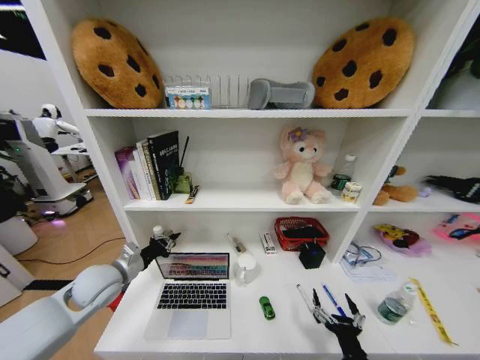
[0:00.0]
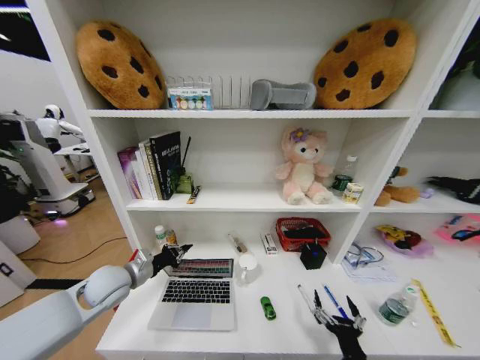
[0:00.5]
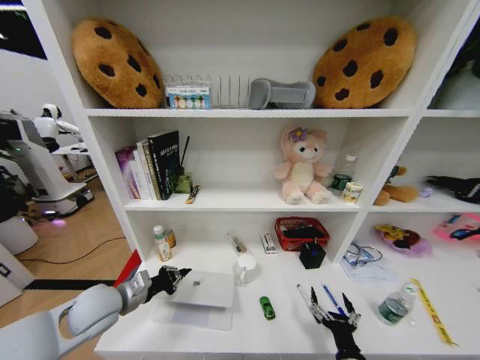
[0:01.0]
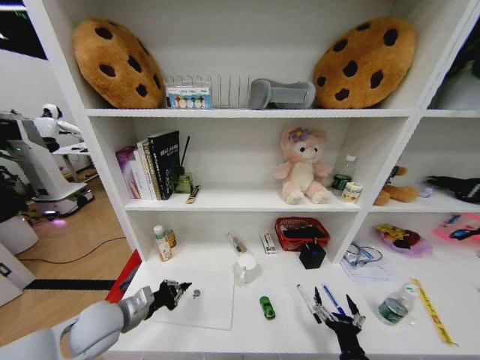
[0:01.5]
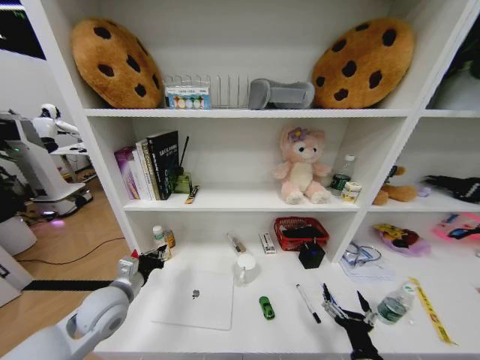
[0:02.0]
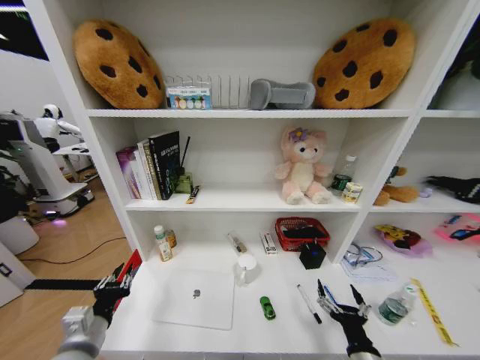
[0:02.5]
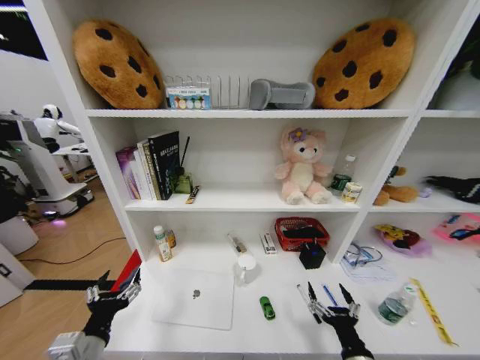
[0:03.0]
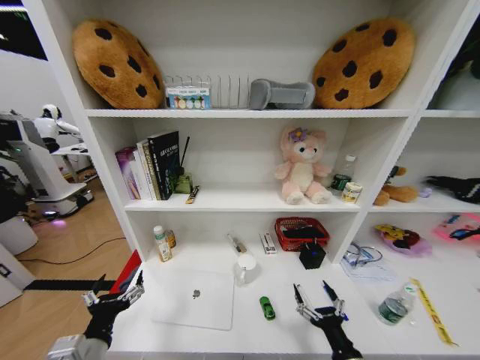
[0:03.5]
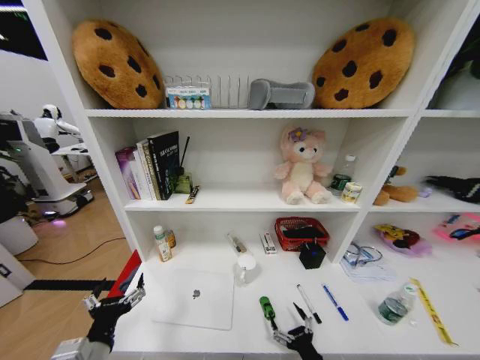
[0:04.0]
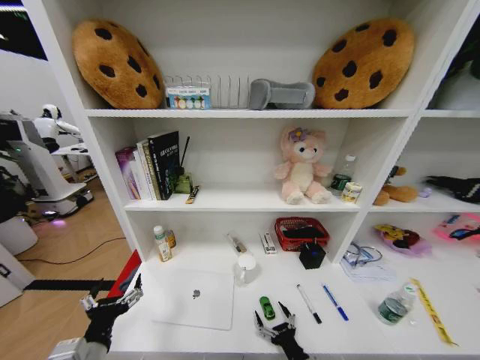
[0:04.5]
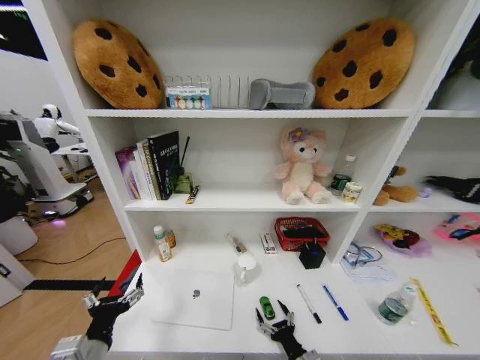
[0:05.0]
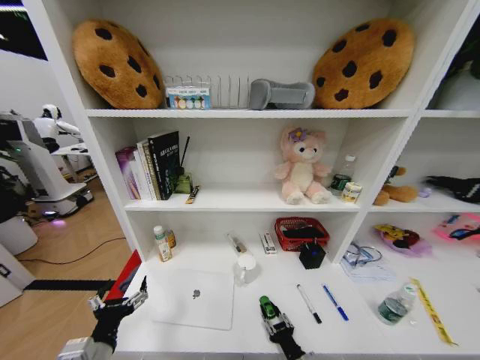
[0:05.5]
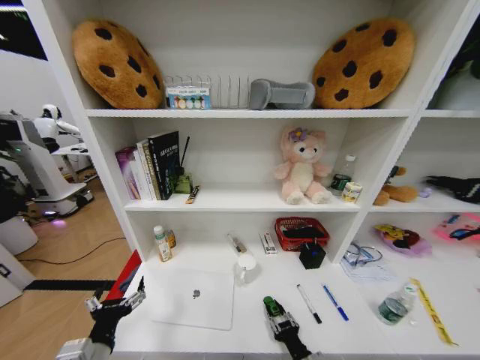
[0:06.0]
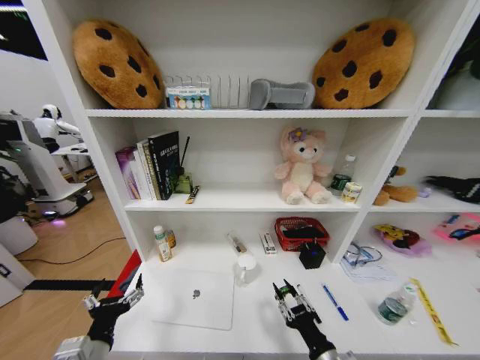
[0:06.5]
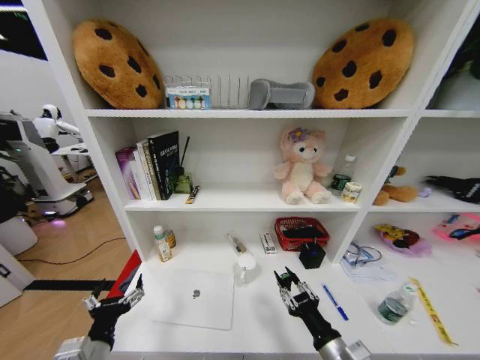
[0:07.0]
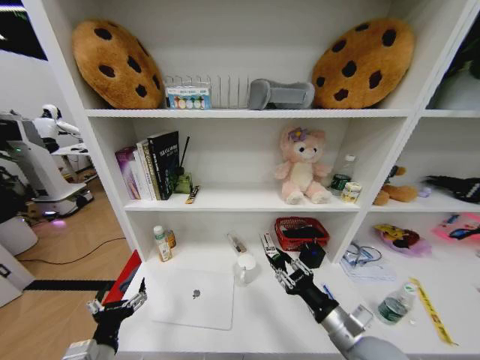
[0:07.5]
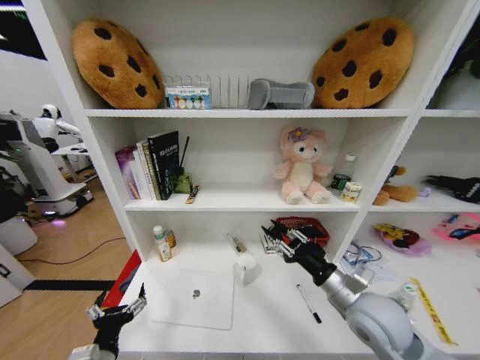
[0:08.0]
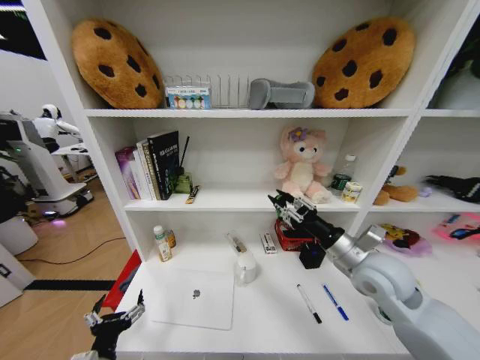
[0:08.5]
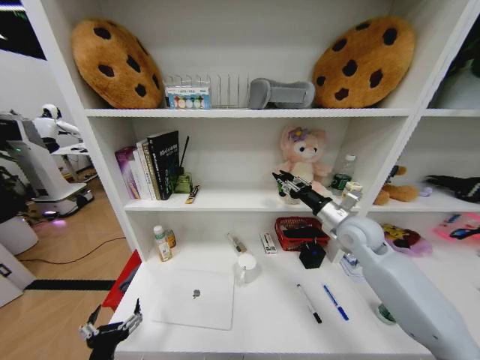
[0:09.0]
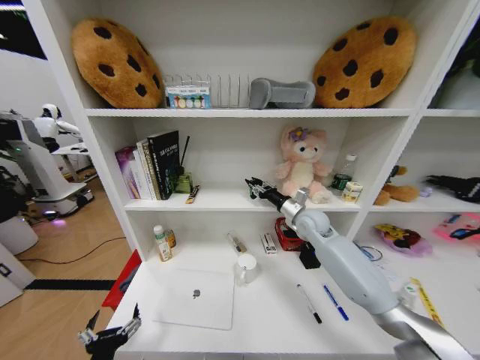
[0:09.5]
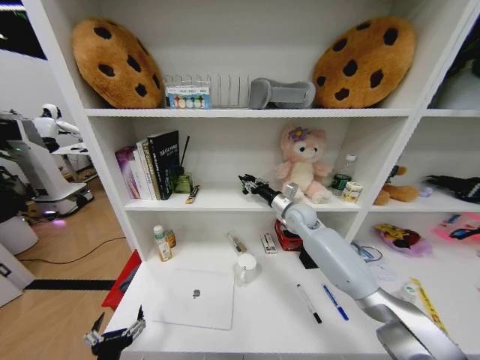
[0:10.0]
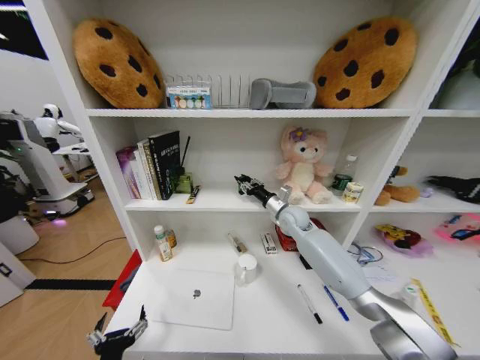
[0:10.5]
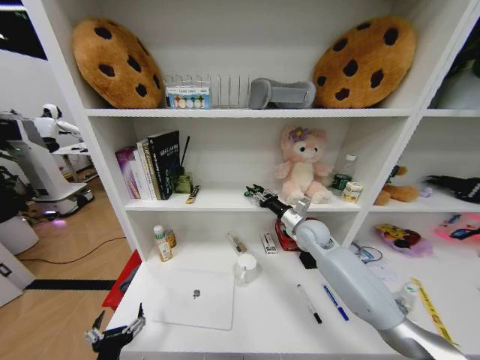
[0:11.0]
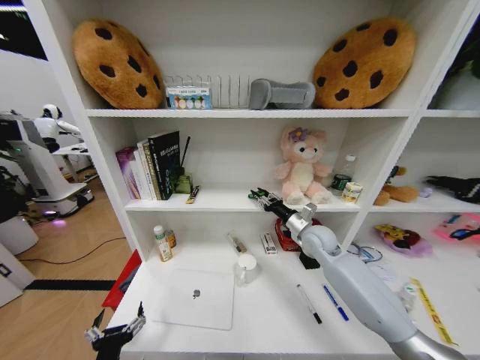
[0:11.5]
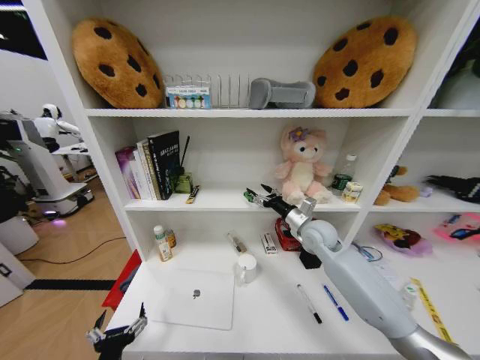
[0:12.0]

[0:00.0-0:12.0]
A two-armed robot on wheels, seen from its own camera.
Task of the whole recording: Organize the objects on the table.
0.0 to 2.0 s: The left gripper ends up about 5 cm from where it was.
2.0 to 4.0 s: The left gripper moves backward, about 15 cm, and opens its fingers; the right gripper heads downward, covering roughly 5 cm.
4.0 to 6.0 s: The right gripper closes.
6.0 to 8.0 s: The right gripper travels upward and forward by some 25 cm.
8.0 to 10.0 s: The right gripper moves forward, roughly 30 cm.
10.0 to 12.0 s: The right gripper shifts roughly 5 cm backward, and opens up.

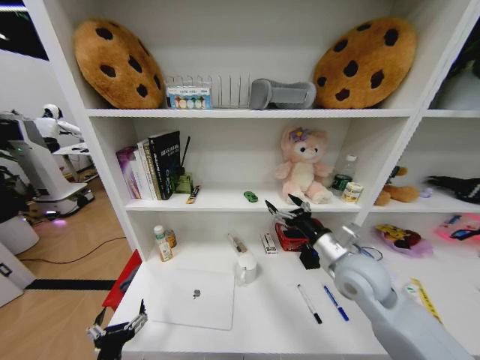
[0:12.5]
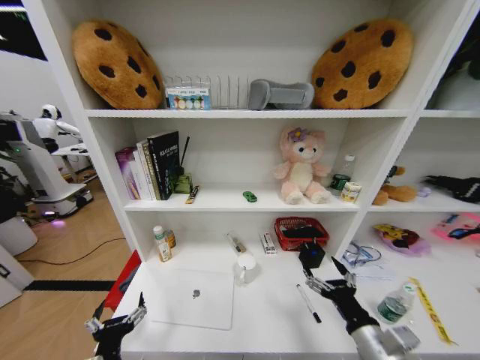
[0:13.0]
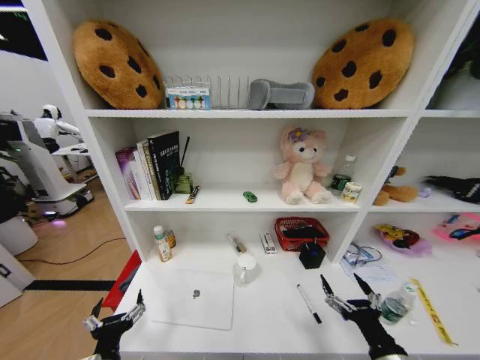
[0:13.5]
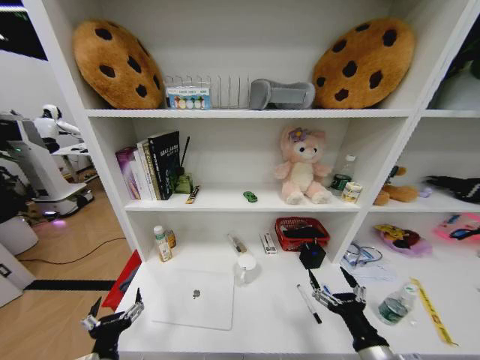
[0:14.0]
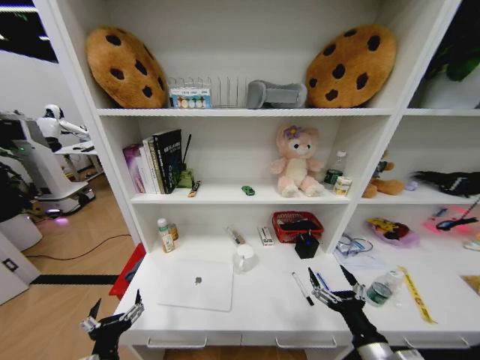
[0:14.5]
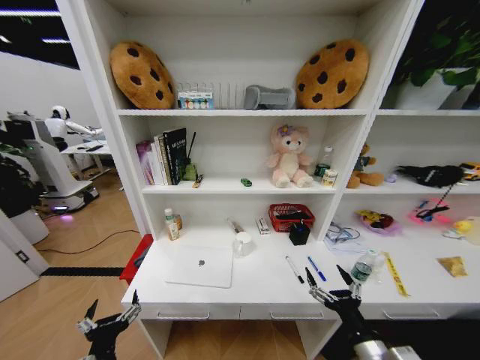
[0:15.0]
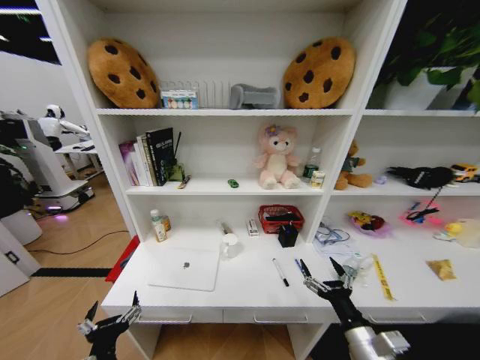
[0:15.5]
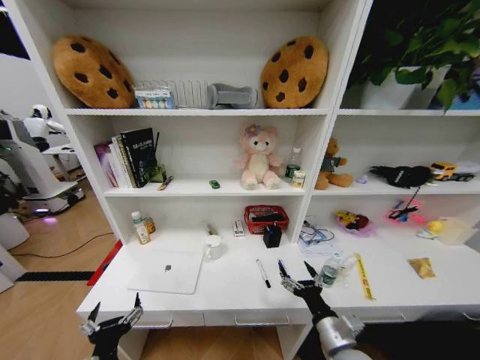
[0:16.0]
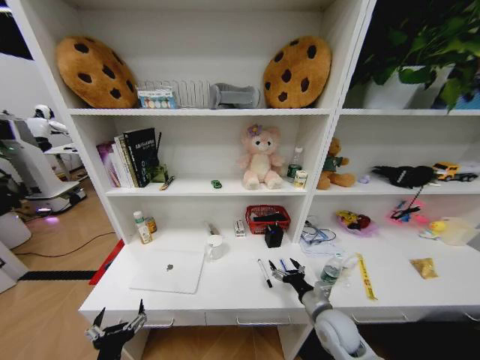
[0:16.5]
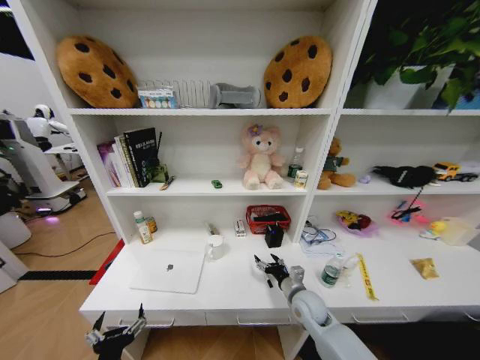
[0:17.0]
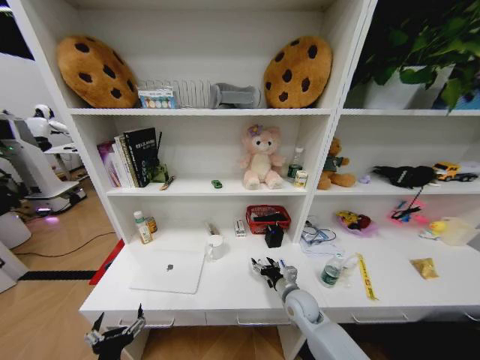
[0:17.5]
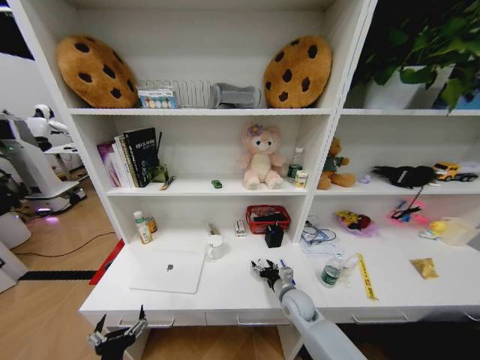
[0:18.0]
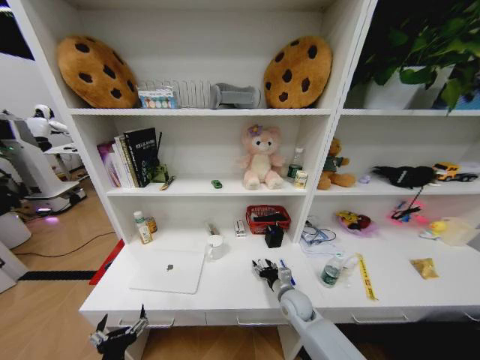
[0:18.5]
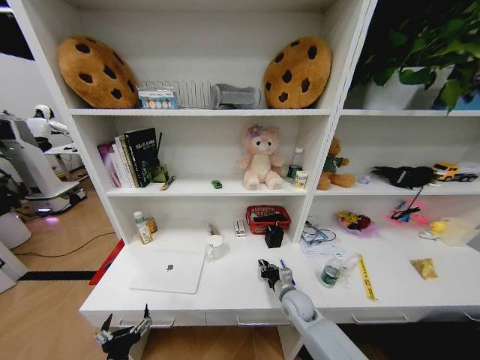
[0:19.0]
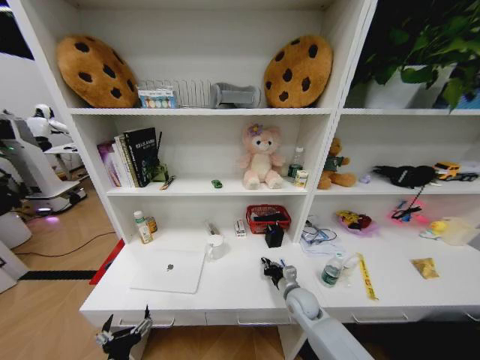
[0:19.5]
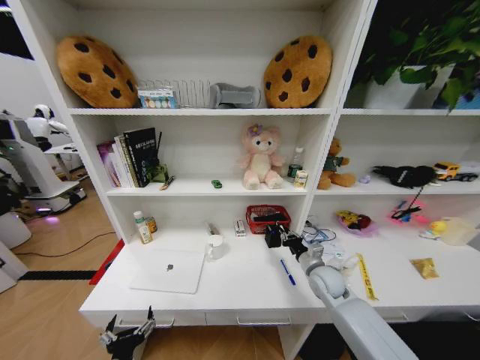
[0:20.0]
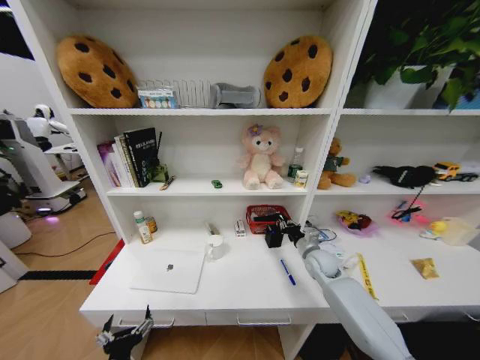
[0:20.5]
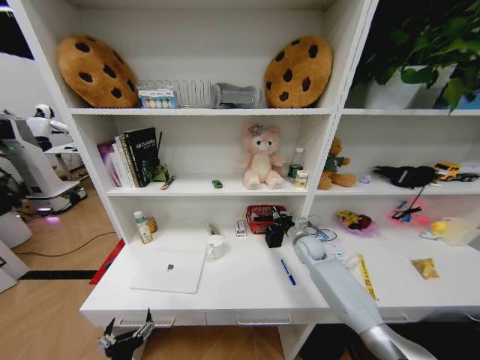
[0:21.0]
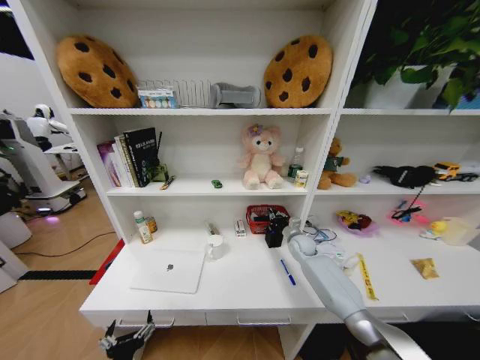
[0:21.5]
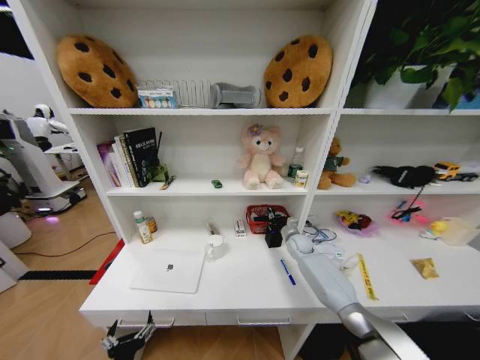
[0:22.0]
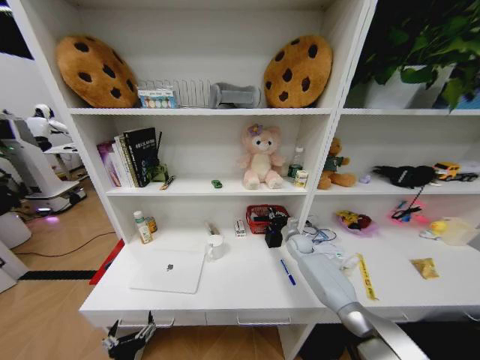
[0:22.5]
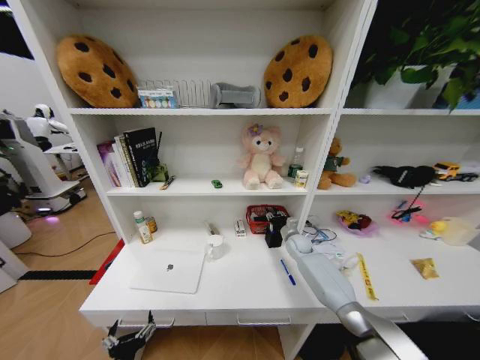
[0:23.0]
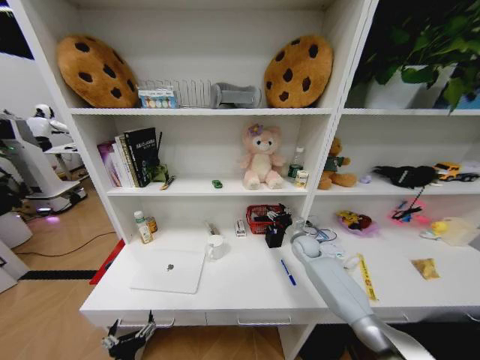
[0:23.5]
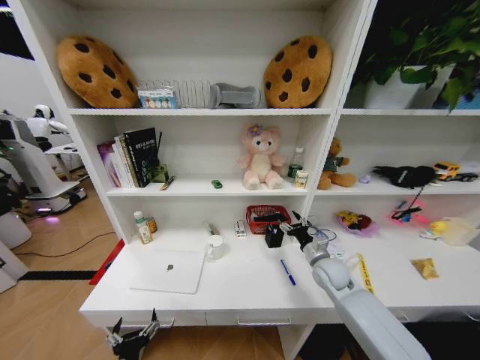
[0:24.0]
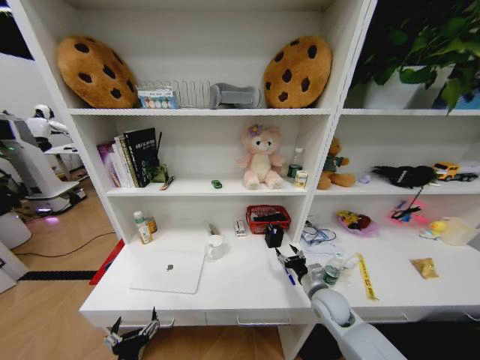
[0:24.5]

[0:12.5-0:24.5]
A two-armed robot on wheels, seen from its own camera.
Task of the whole recording: Organize the objects on the table.
12.5 to 14.5 s: The right gripper shifts approximately 25 cm backward and downward.
14.5 to 16.5 s: The right gripper goes approximately 15 cm forward and downward.
16.5 to 18.5 s: The right gripper moves forward, to the left and downward, some 10 cm.
18.5 to 20.5 s: The right gripper travels to the right, forward and upward by approximately 15 cm, and closes.
20.5 to 22.5 s: The right gripper moves forward, some 10 cm.
22.5 to 24.5 s: The right gripper is displaced backward by roughly 20 cm, and opens.

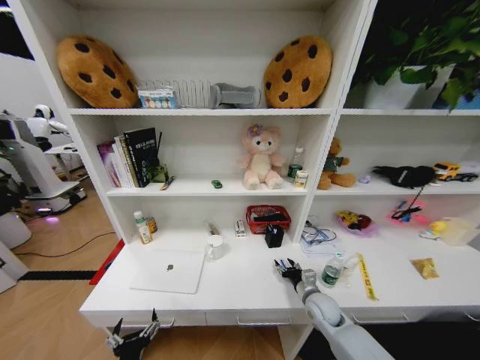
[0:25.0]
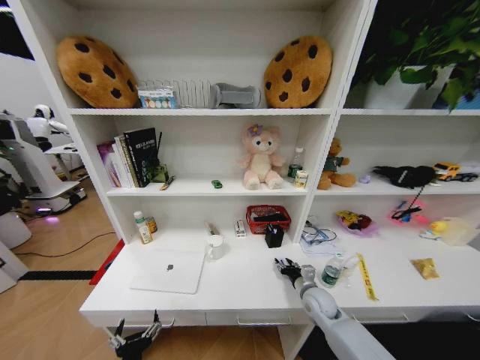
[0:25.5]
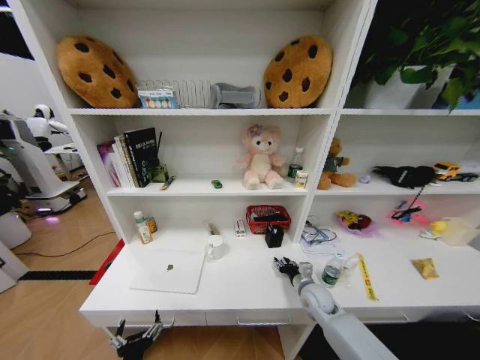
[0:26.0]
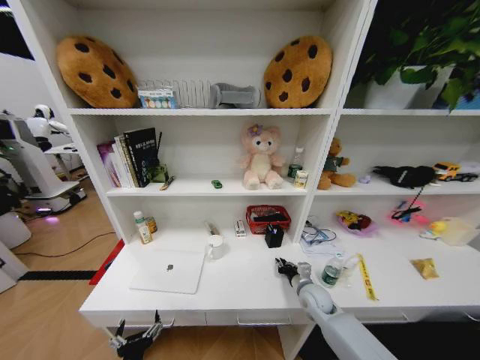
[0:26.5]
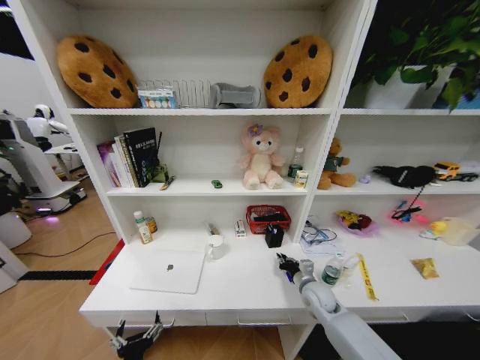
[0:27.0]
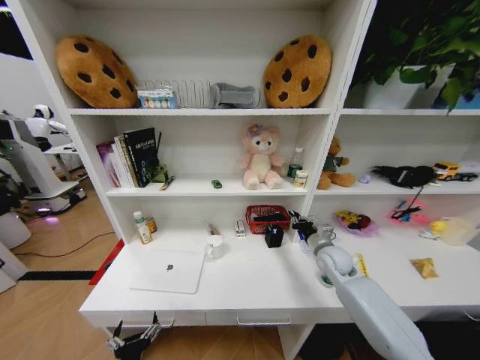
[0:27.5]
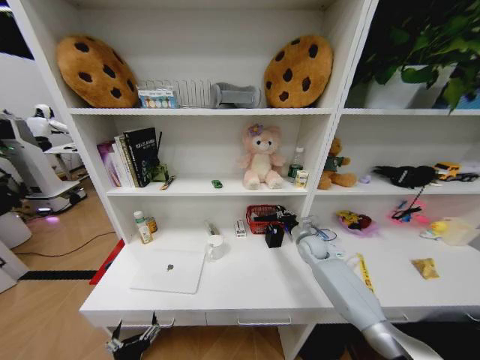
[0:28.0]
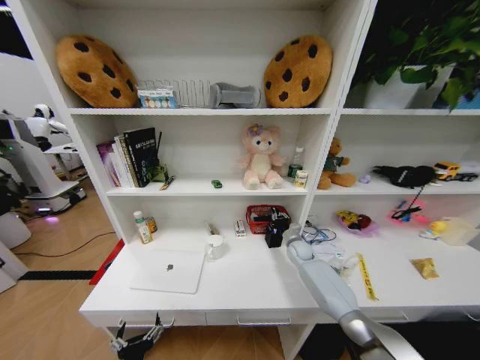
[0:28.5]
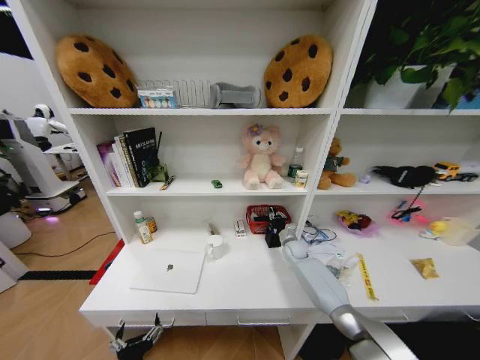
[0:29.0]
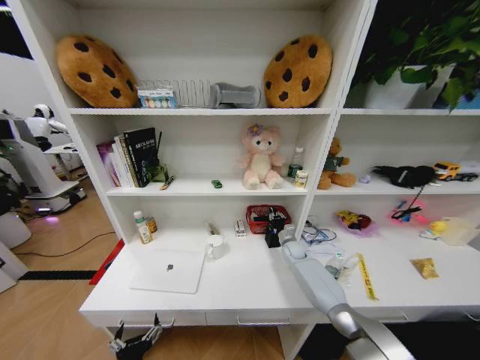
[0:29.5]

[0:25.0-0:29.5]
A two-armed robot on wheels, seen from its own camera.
Task of the whole recording: Organize the objects on the table.
25.0 to 27.0 s: The right gripper closes.
27.0 to 29.5 s: The right gripper goes approximately 20 cm forward.
